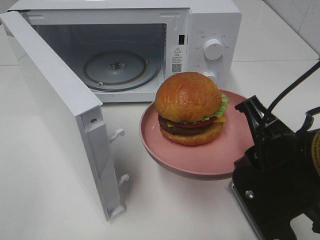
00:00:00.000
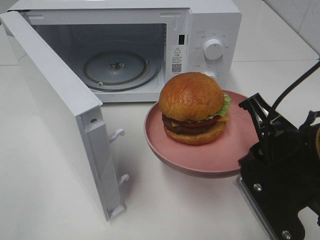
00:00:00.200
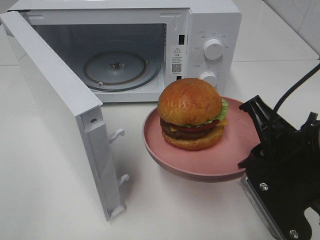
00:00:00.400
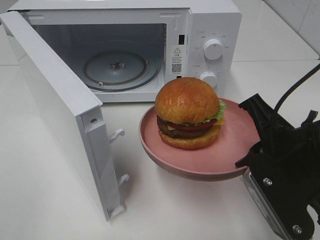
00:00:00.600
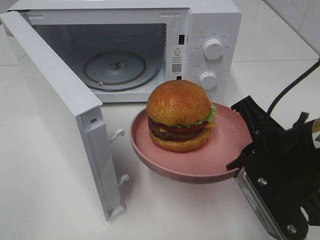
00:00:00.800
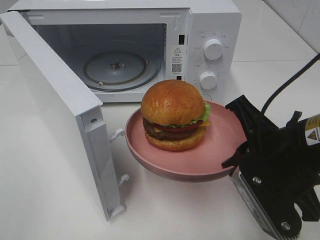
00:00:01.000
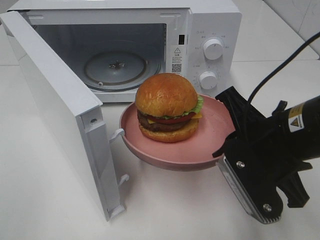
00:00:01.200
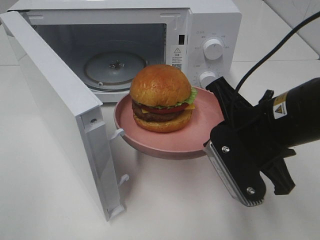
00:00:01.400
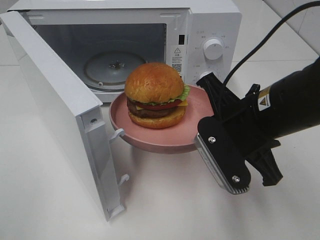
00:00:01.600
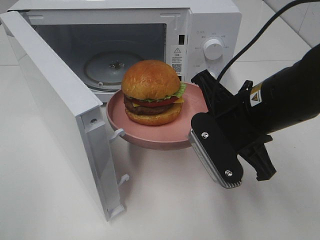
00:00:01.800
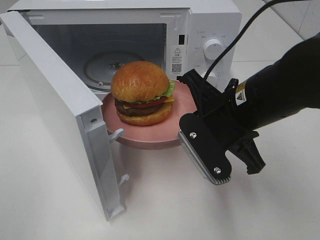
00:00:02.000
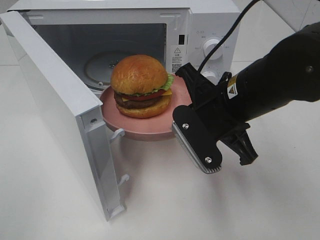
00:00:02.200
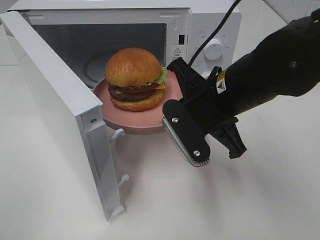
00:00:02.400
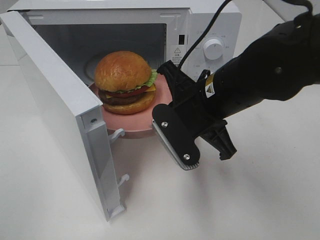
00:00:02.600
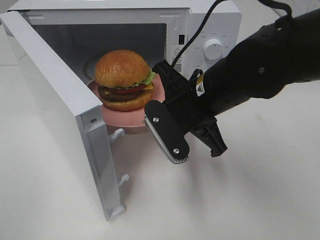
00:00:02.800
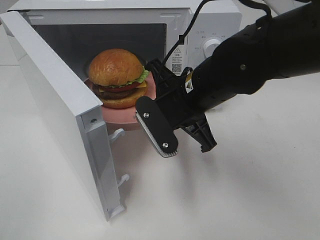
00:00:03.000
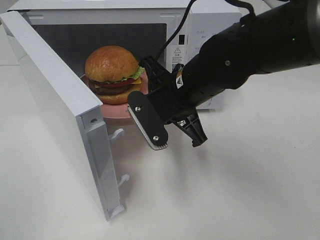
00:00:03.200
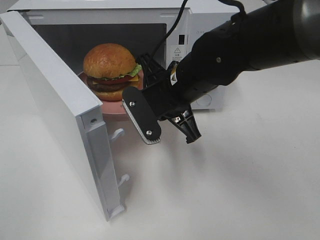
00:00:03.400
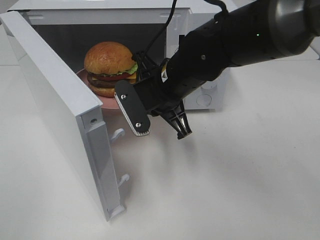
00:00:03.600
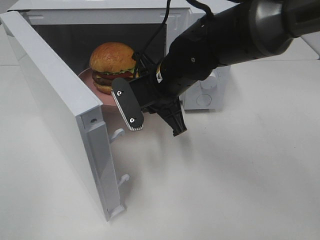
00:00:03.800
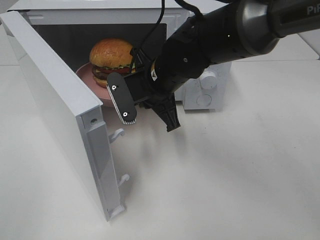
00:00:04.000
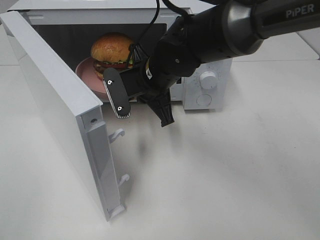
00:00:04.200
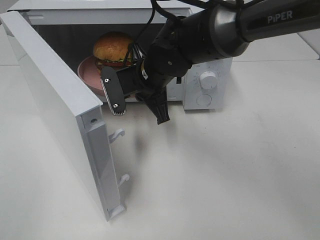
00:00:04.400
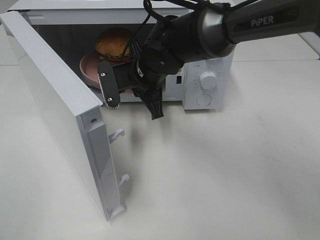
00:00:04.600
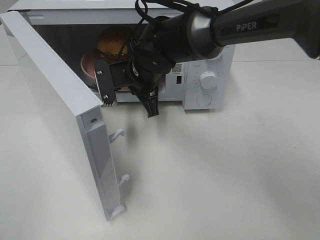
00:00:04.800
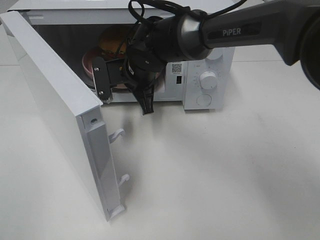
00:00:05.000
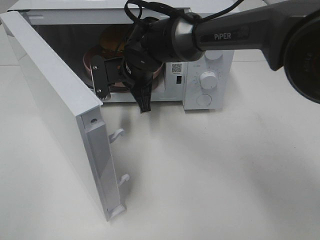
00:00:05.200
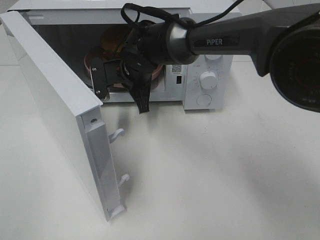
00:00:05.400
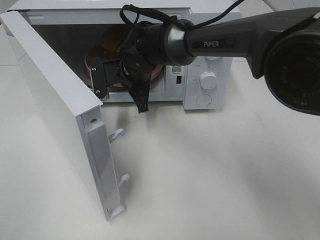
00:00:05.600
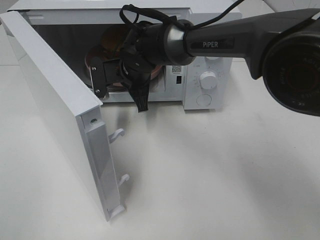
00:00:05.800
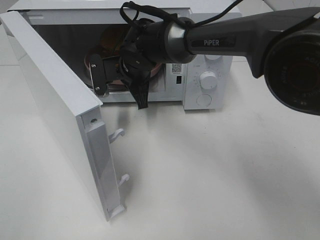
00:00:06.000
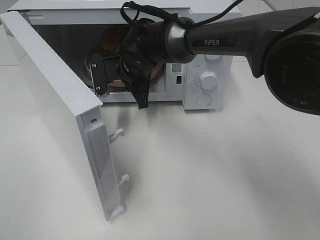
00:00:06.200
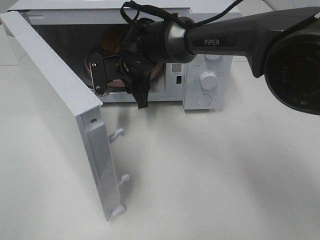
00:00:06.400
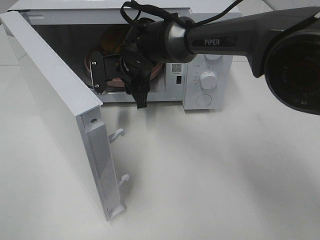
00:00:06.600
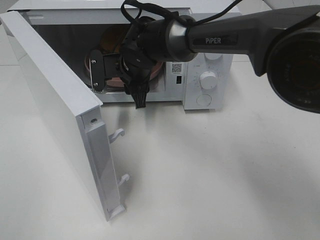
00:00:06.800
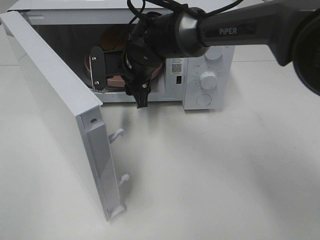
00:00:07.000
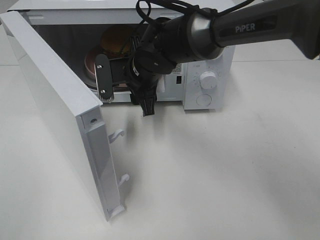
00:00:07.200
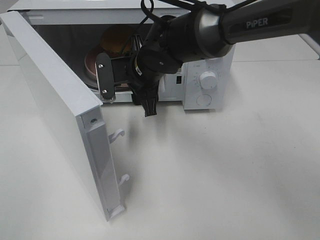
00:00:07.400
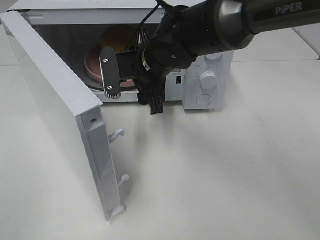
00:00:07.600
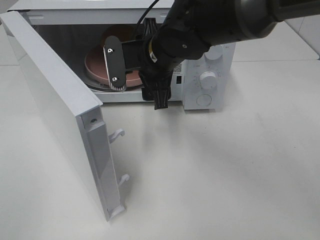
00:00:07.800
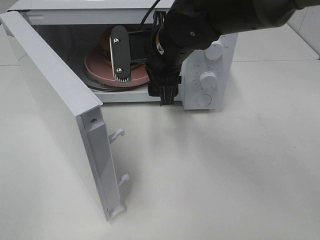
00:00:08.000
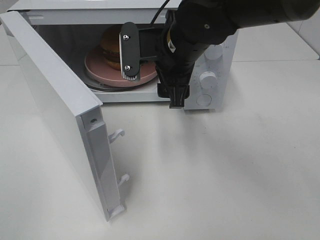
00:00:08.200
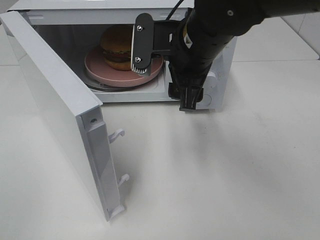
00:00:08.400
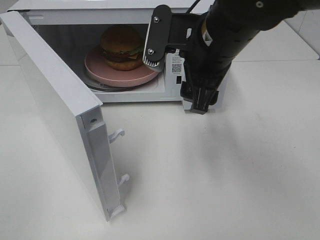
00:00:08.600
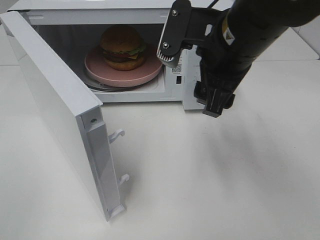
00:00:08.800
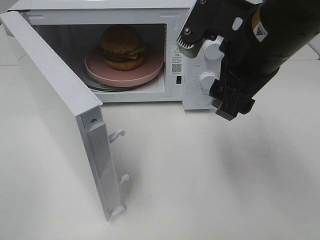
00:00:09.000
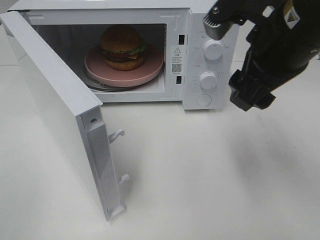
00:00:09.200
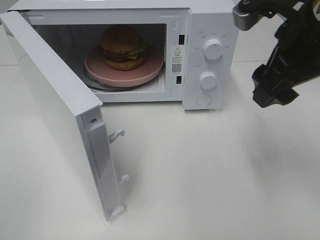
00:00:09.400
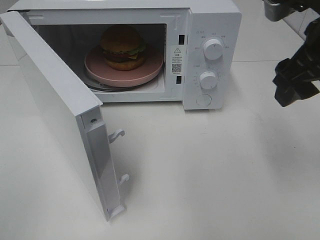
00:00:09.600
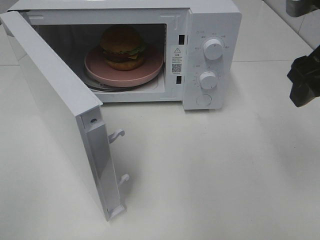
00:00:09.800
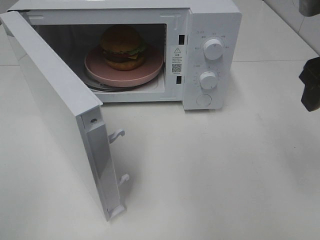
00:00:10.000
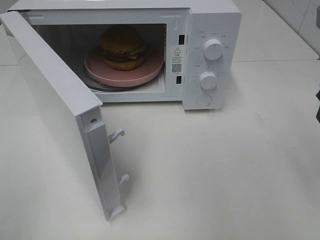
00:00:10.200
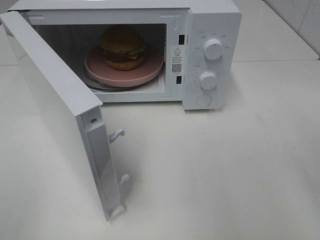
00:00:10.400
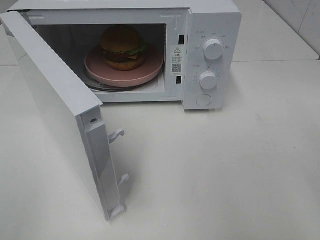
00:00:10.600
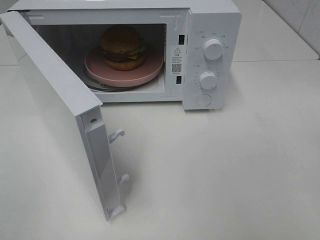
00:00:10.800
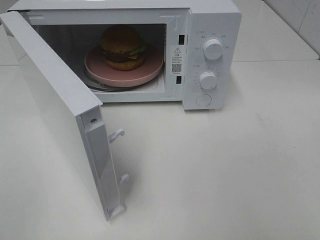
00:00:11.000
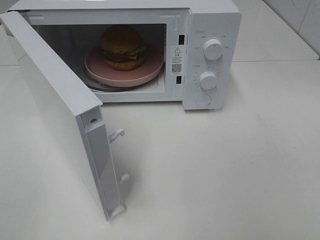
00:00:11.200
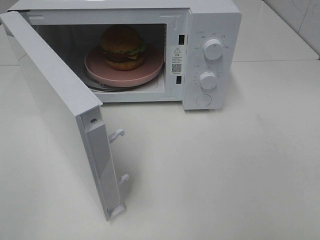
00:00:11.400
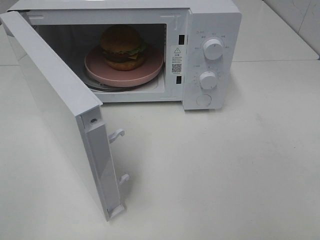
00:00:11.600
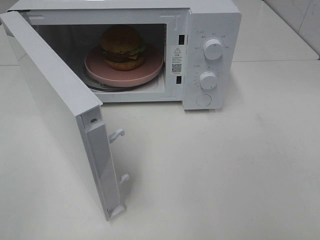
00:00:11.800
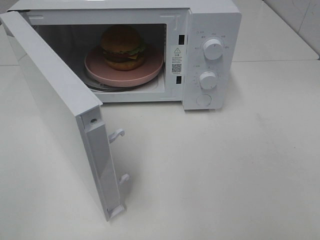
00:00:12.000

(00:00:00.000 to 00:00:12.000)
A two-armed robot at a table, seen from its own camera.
Task of the whole recording: Heat the burger.
Step, 00:00:00.000 - 00:00:06.600: Right hand: place the plate in the microwave.
00:00:00.000 - 00:00:01.600: The right gripper shifts about 5 cm forward.
00:00:01.600 - 00:00:03.000: The right gripper goes some 10 cm to the left and forward.
00:00:03.000 - 00:00:04.400: The right gripper goes approximately 10 cm forward and to the left.
00:00:04.400 - 00:00:06.000: The right gripper travels forward by some 5 cm.
00:00:06.000 - 00:00:07.600: The right gripper travels backward by some 5 cm, and opens its fingers.
00:00:07.600 - 00:00:09.000: The right gripper goes some 20 cm to the right, backward and upward.
00:00:09.000 - 00:00:10.400: The right gripper goes some 15 cm to the right and backward.

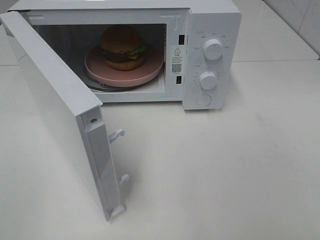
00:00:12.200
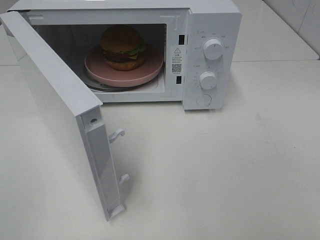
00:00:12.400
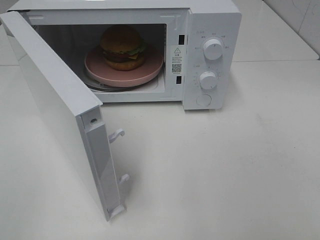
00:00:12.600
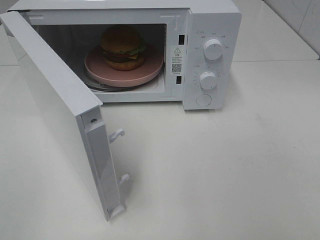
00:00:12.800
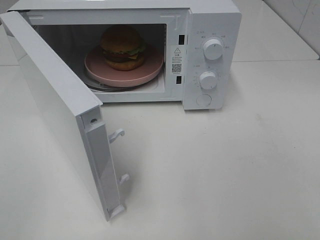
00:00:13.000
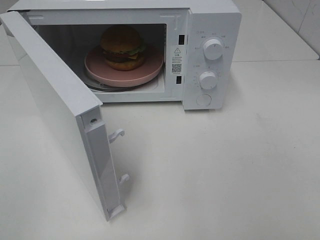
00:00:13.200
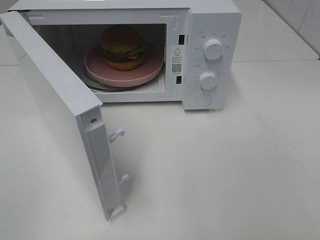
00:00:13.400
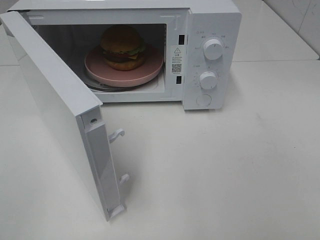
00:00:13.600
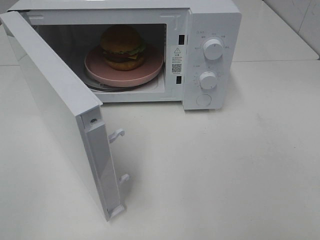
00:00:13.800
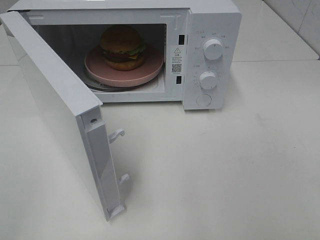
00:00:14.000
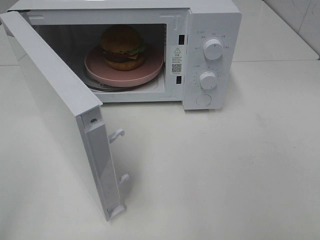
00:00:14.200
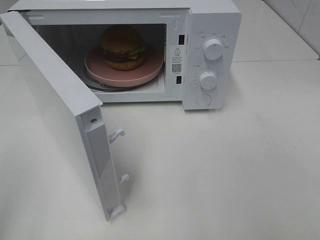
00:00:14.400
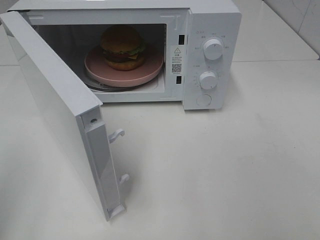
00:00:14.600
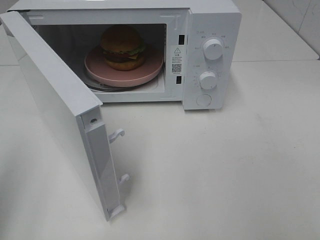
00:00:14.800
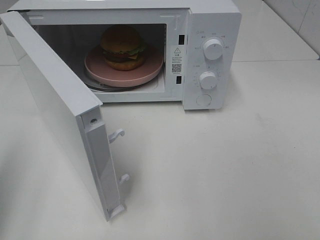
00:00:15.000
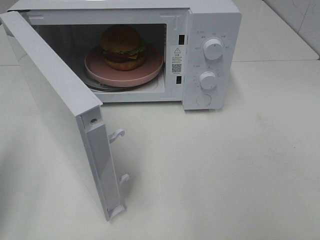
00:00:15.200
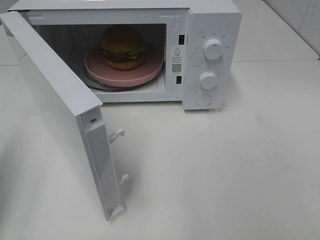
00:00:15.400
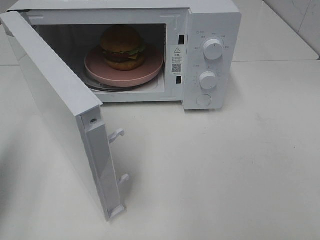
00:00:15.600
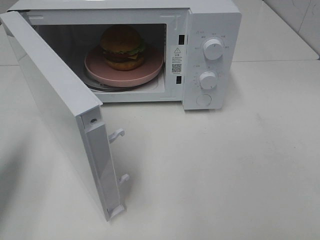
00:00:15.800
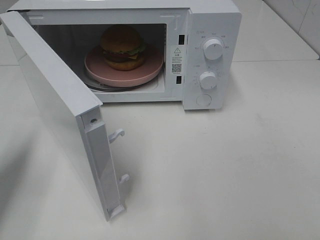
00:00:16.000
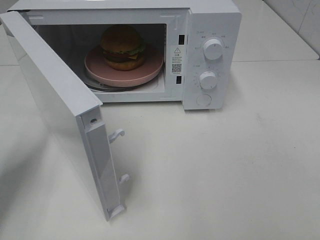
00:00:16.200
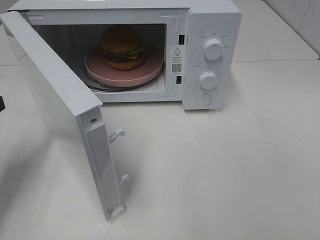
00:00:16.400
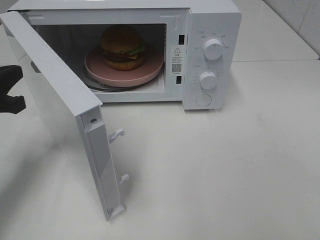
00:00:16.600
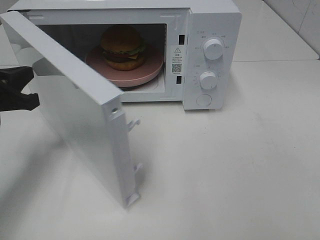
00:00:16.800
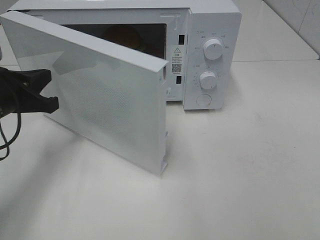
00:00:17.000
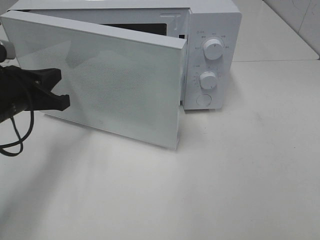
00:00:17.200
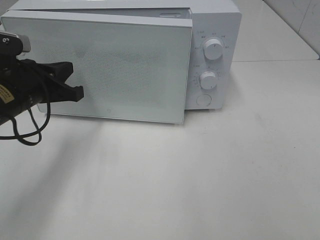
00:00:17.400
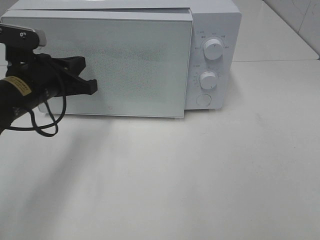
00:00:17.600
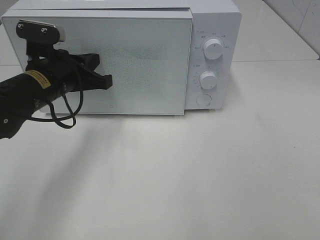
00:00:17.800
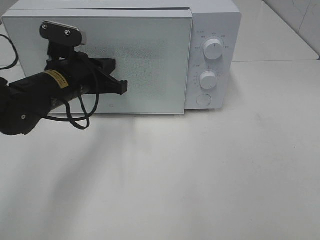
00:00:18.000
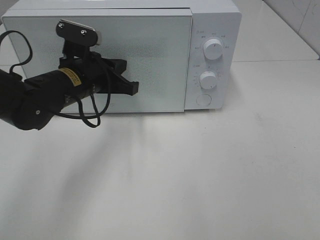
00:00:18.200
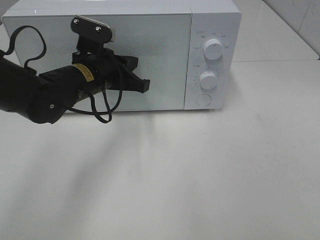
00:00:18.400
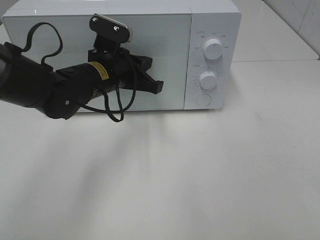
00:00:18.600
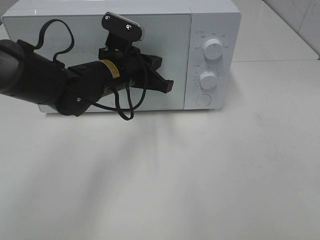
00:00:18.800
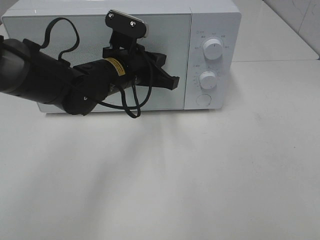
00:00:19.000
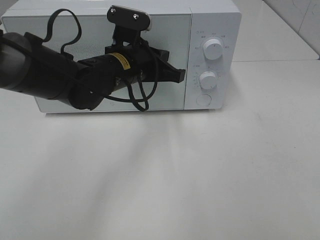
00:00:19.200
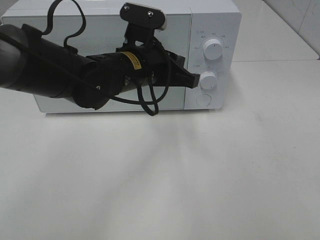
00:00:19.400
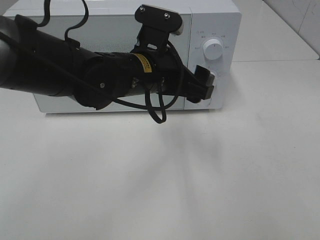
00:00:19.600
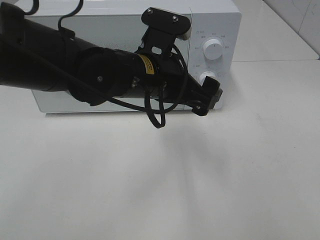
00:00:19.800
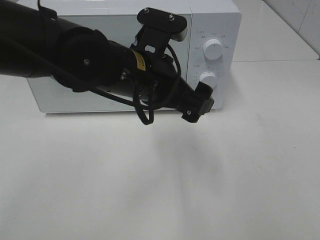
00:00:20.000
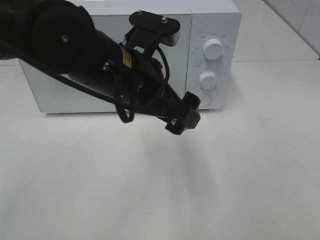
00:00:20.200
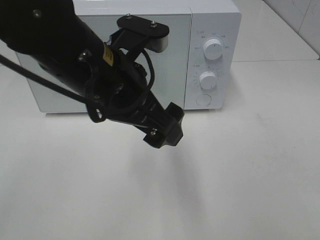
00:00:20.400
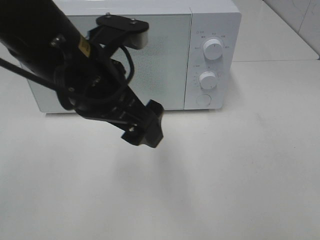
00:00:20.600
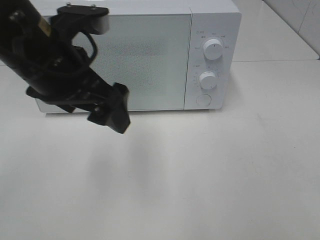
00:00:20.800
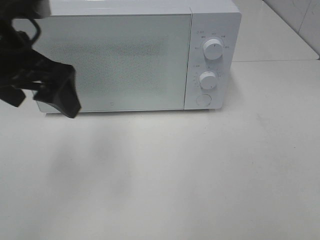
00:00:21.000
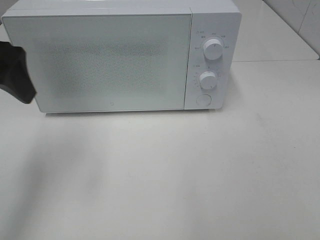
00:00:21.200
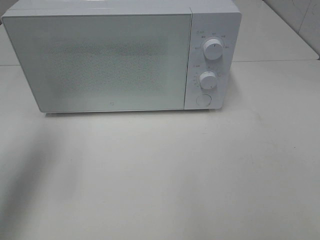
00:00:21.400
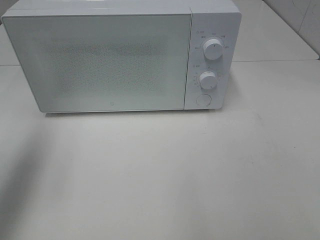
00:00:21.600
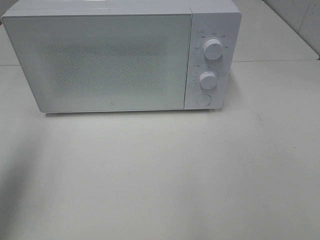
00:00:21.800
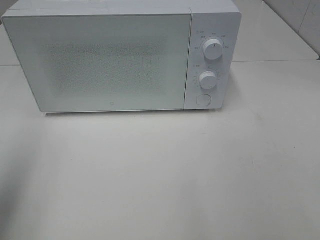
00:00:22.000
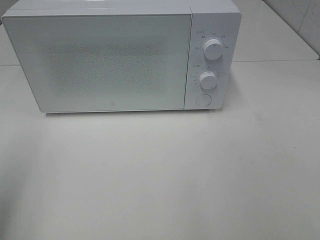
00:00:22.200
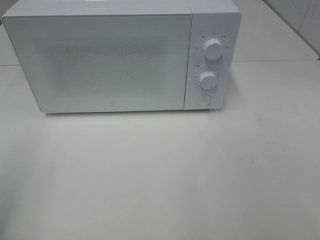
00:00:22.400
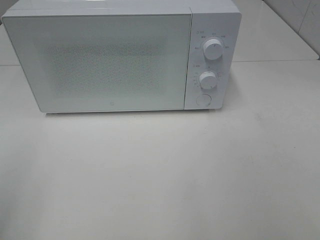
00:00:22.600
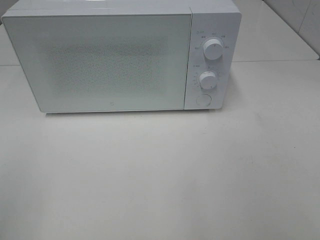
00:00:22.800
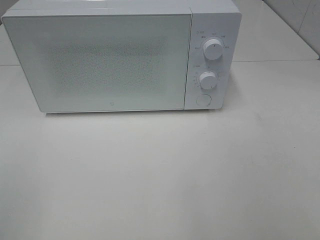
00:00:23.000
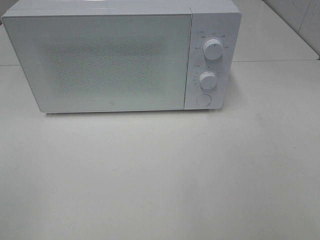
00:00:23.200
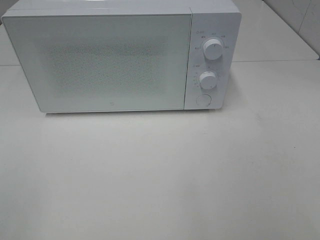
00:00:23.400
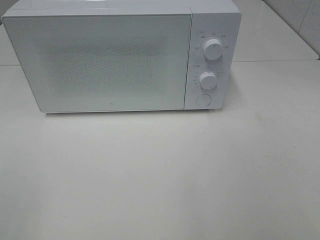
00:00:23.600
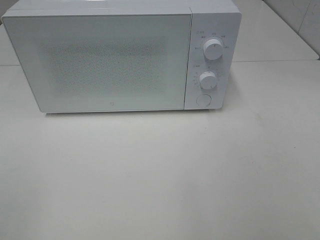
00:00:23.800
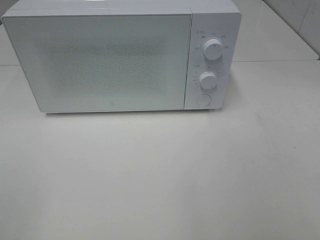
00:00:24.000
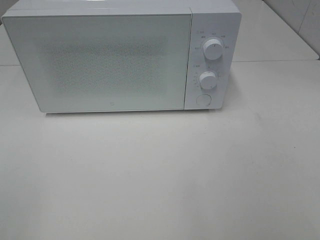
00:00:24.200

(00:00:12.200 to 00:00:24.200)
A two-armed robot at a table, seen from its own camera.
Task of the whole recording: Heat the burger.
Step, 00:00:12.200 - 00:00:19.400: Left hand: close the microwave door.
00:00:12.200 - 00:00:13.800: Neither gripper changes place.
00:00:13.800 - 00:00:15.200: The left gripper shifts roughly 15 cm forward, and closes up.
00:00:15.200 - 00:00:16.600: The left gripper travels forward, downward and to the right by approximately 15 cm.
00:00:16.600 - 00:00:18.200: The left gripper is displaced to the right and forward by about 20 cm.
00:00:18.200 - 00:00:19.800: The left gripper travels to the right and backward by about 15 cm, and opens its fingers.
00:00:19.800 - 00:00:21.200: The left gripper goes approximately 25 cm to the left and upward.
00:00:21.200 - 00:00:22.600: The left gripper goes some 20 cm backward and to the left.
